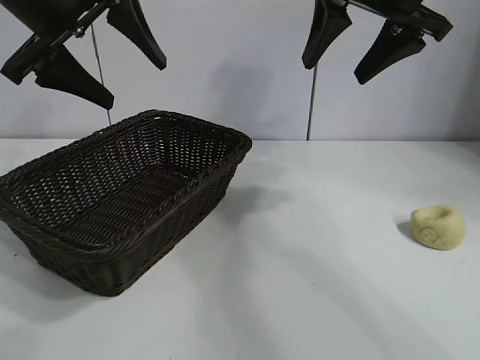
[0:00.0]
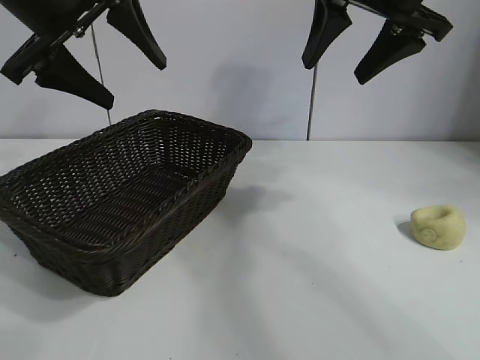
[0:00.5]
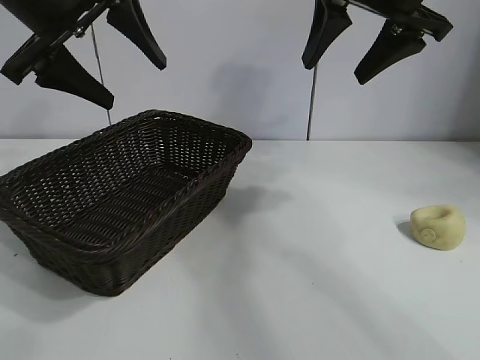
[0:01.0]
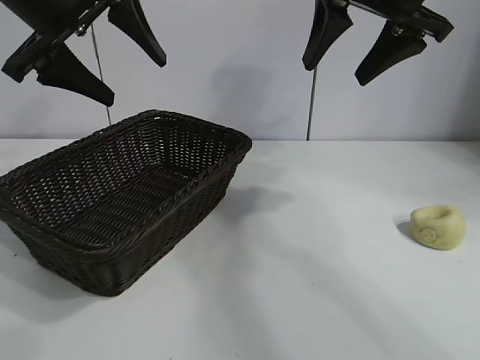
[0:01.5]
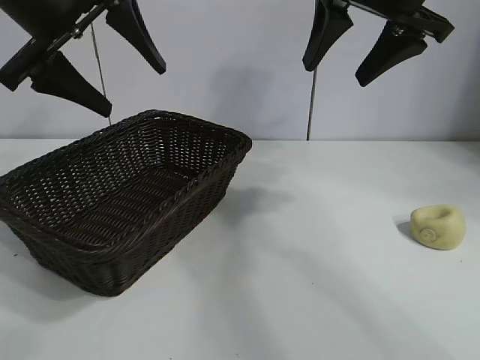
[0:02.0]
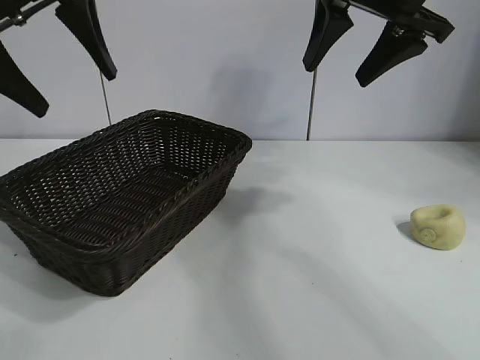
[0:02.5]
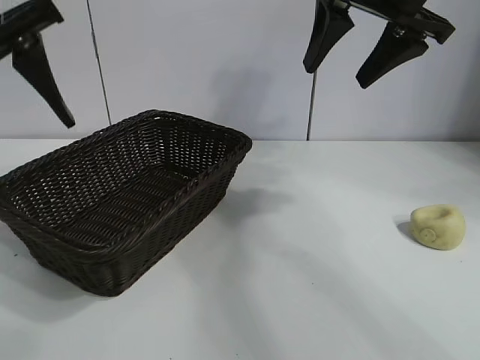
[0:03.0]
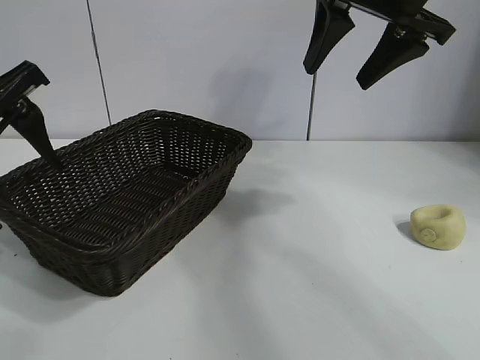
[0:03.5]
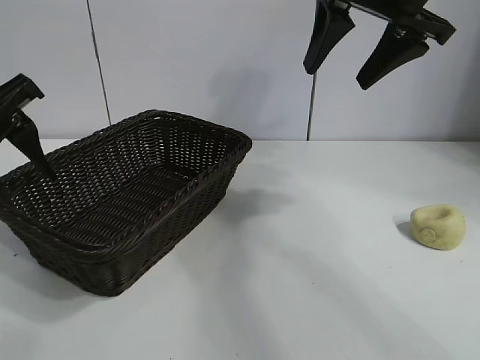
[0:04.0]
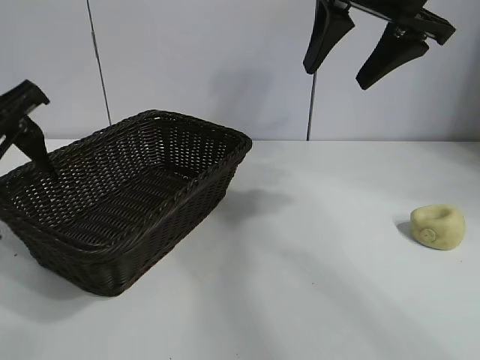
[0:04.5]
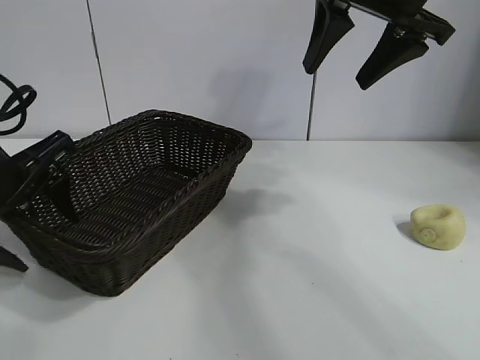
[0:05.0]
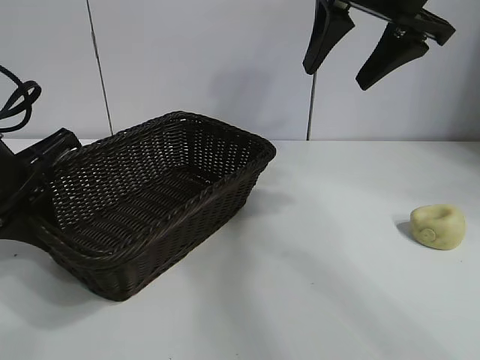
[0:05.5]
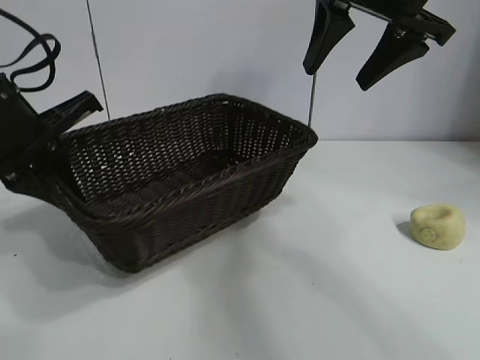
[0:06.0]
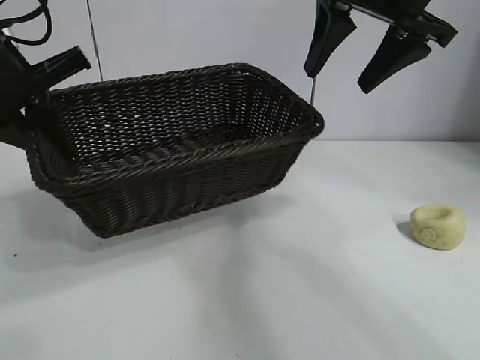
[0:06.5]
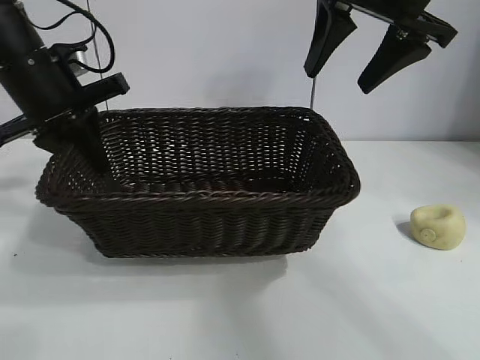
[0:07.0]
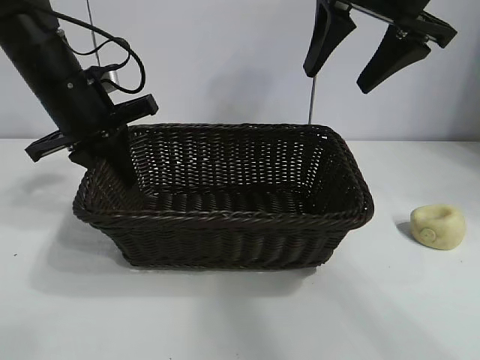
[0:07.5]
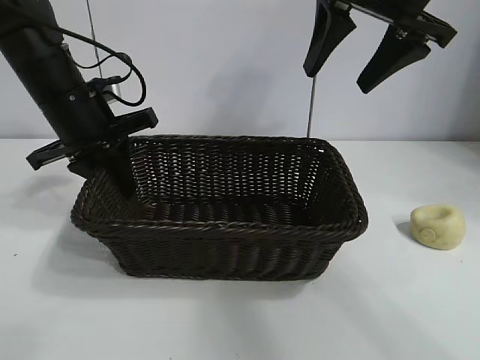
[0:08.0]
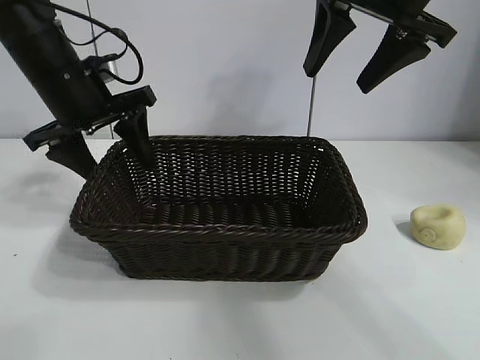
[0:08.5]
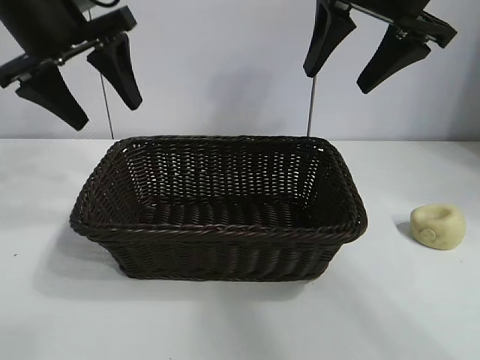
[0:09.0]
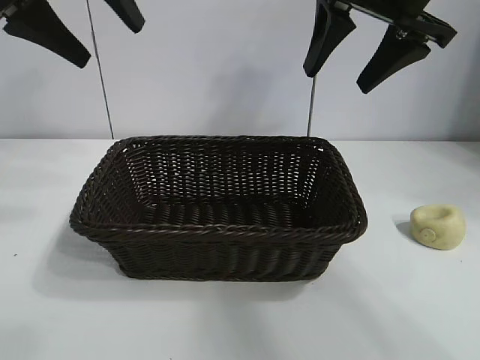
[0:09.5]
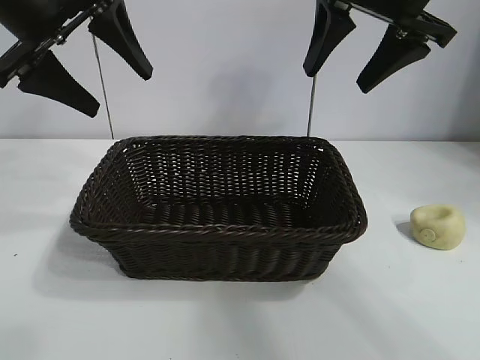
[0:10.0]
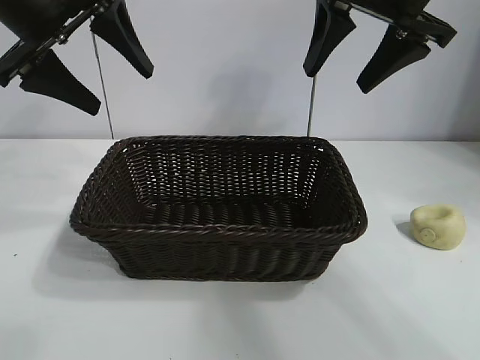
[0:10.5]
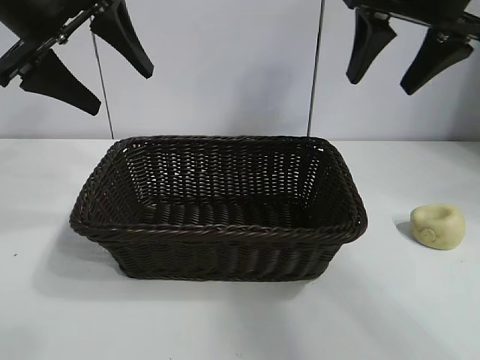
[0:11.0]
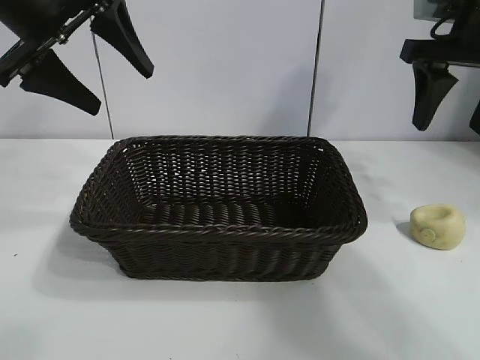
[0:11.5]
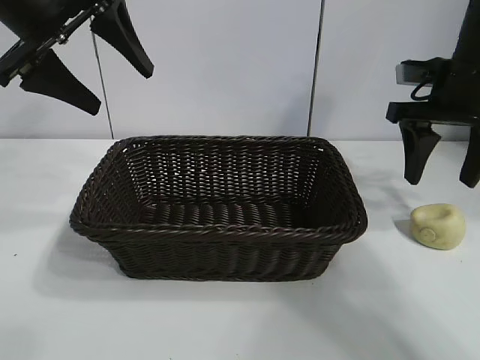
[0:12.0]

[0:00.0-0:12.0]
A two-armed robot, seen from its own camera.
Task of the whole recording: pick up the egg yolk pastry and put it into the basket.
Step, 0:01.5 to 0:05.0: Grasp the basket with left gripper.
Step, 0:05.5 to 0:08.0: Place the basket in the center of view with left gripper.

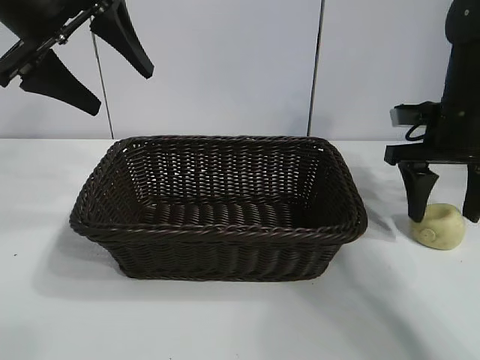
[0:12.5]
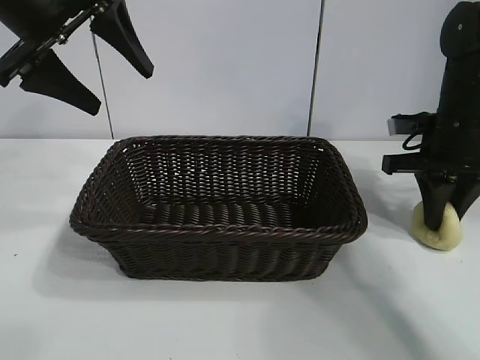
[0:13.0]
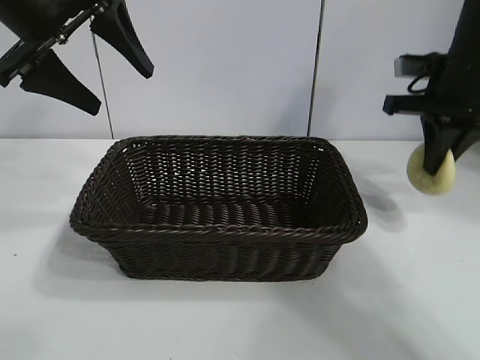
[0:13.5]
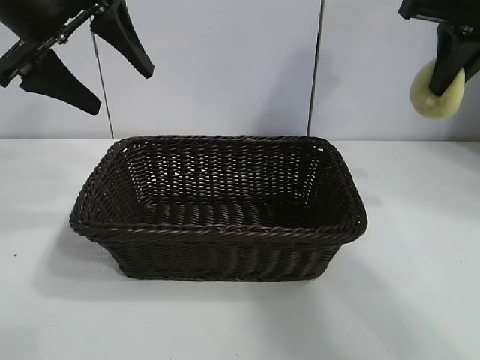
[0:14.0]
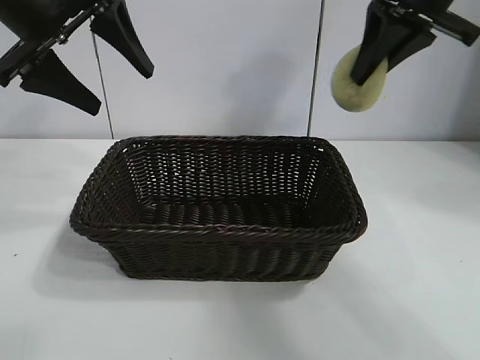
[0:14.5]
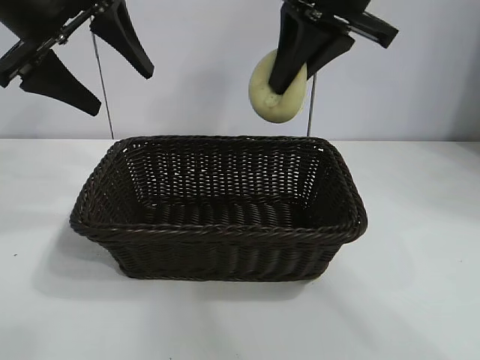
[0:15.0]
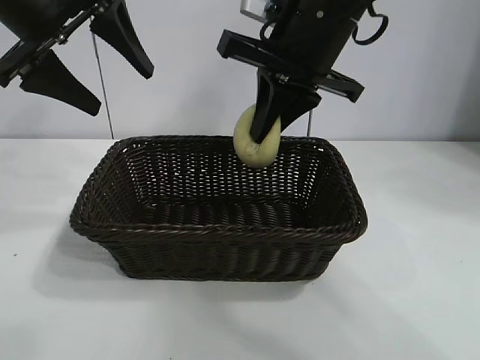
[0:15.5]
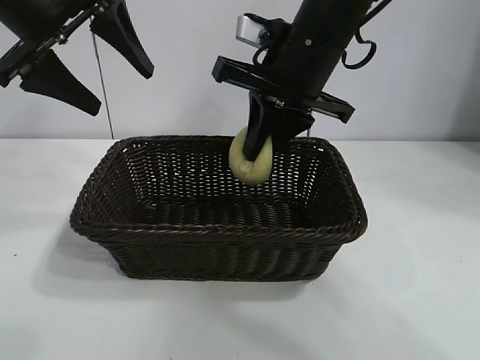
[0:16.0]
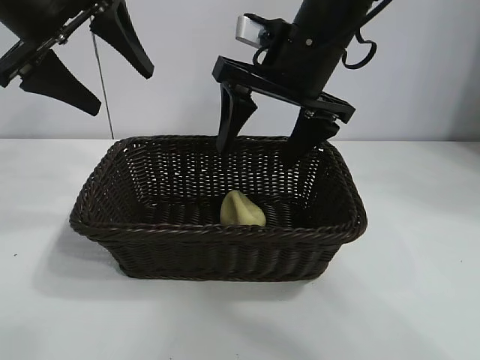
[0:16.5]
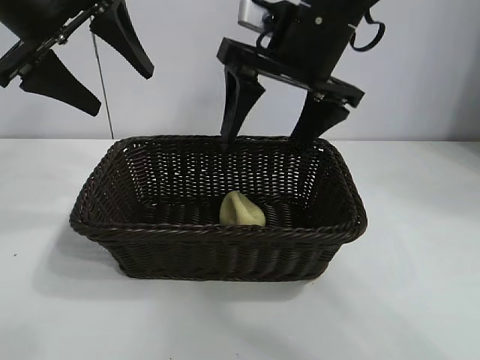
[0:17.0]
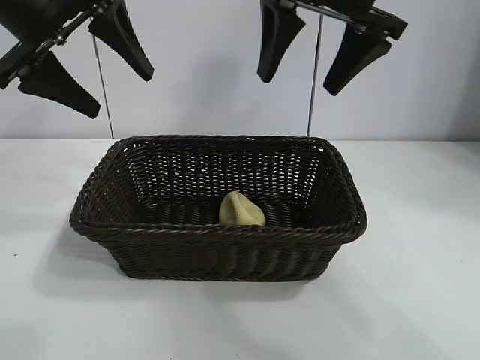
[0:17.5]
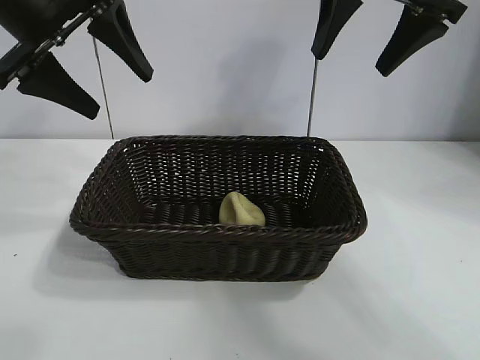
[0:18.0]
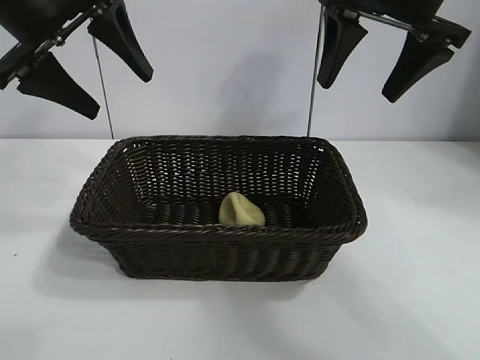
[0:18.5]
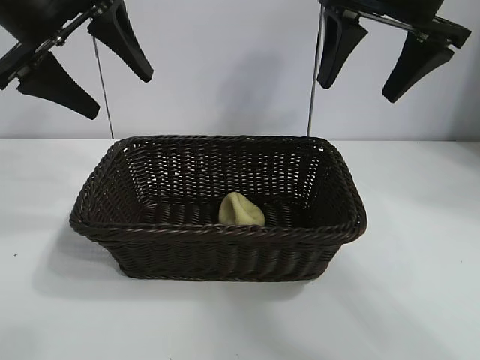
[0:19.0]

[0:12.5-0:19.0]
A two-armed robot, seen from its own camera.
Task of the whole recording: pick up the egg yolk pastry and put it into the basket.
Step, 0:13.5 to 0:16.0: Place the egg yolk pastry in the basket with right gripper.

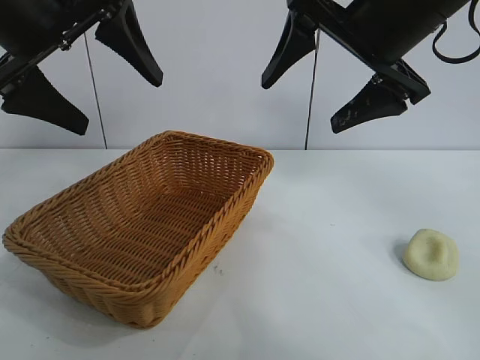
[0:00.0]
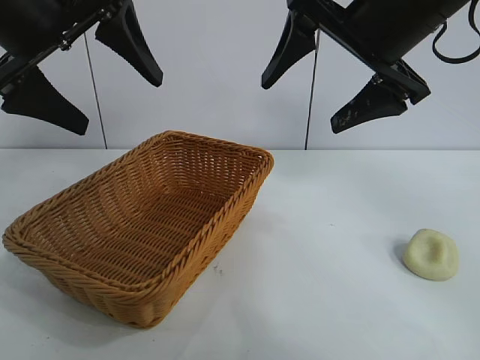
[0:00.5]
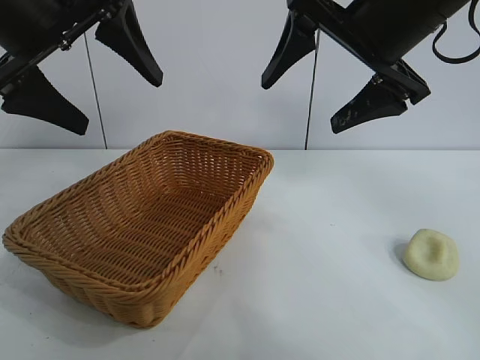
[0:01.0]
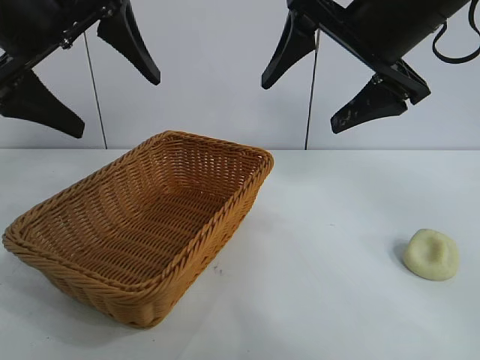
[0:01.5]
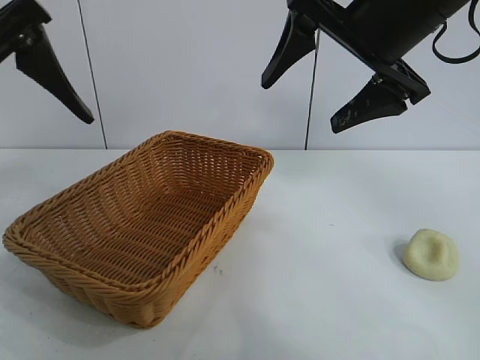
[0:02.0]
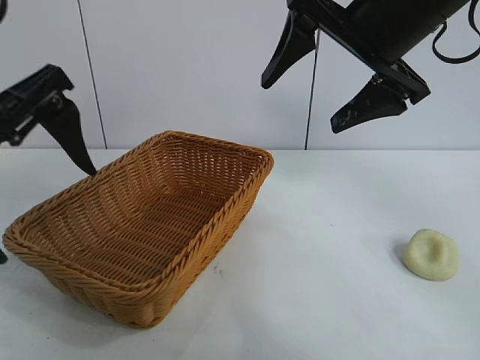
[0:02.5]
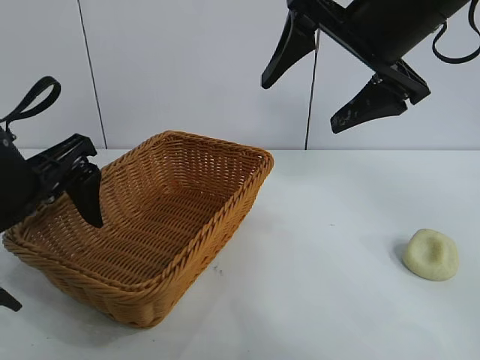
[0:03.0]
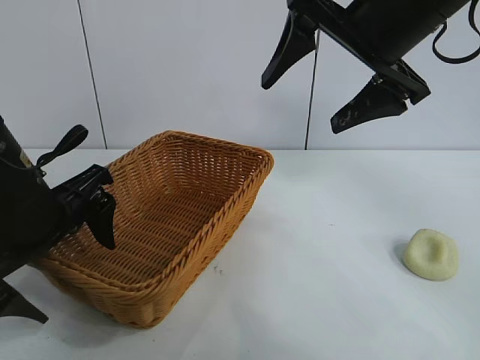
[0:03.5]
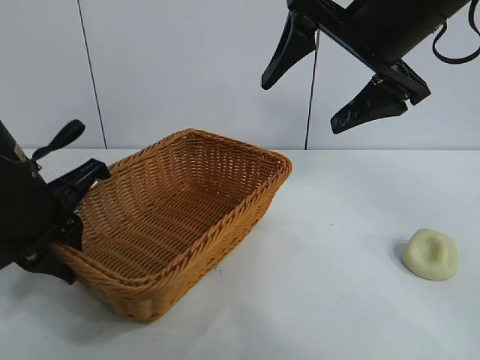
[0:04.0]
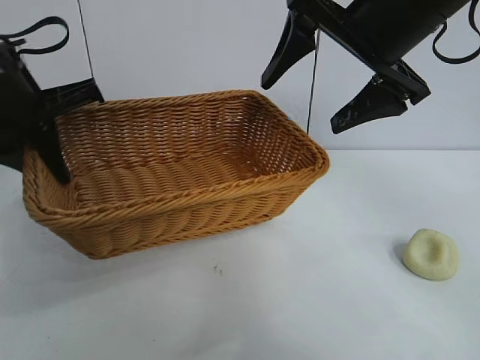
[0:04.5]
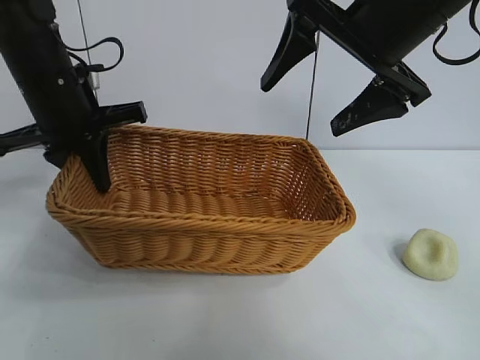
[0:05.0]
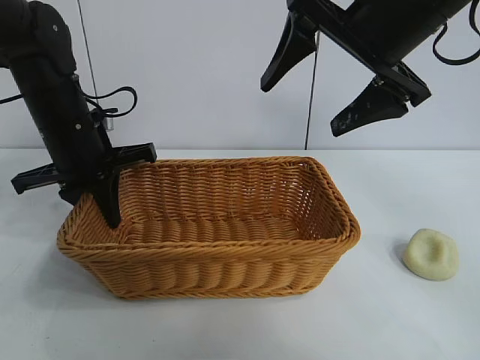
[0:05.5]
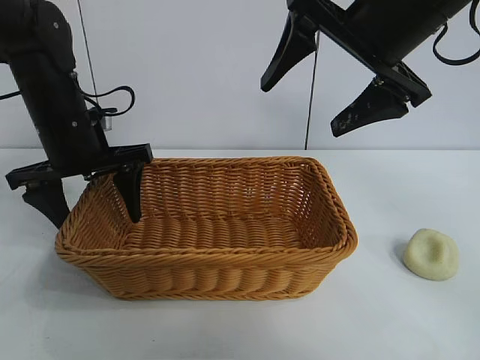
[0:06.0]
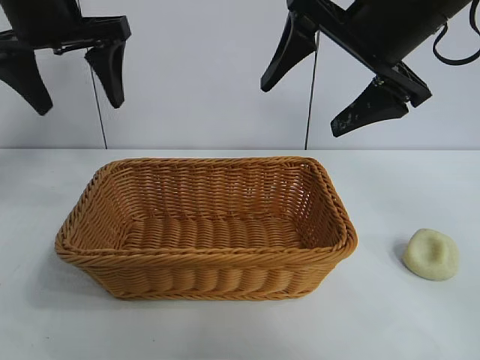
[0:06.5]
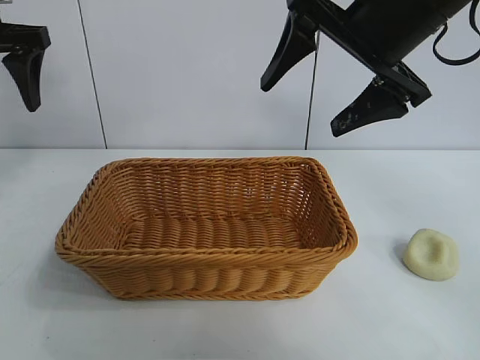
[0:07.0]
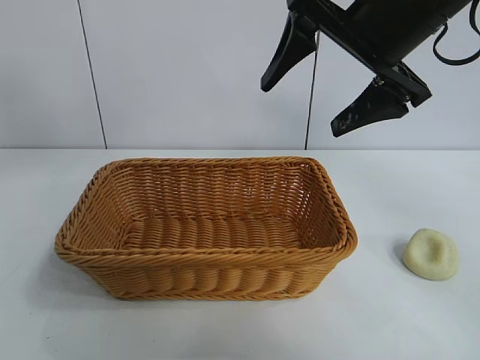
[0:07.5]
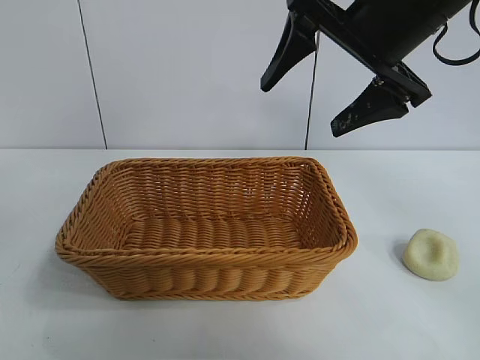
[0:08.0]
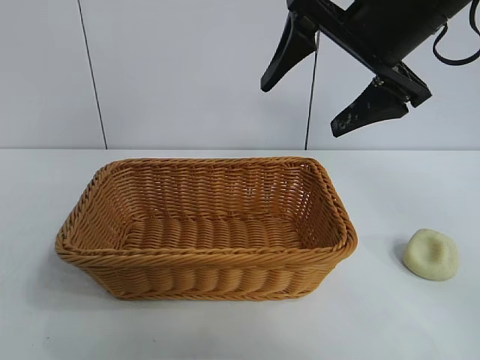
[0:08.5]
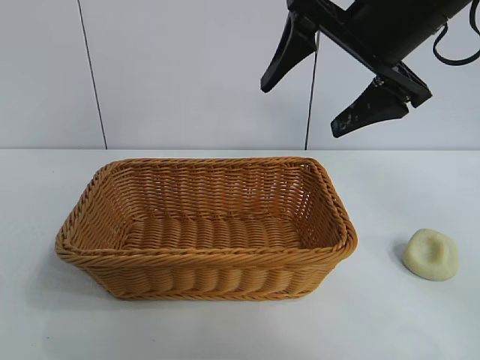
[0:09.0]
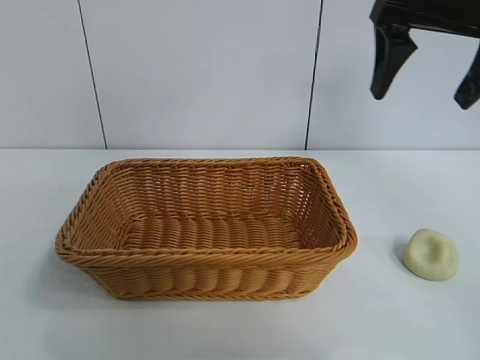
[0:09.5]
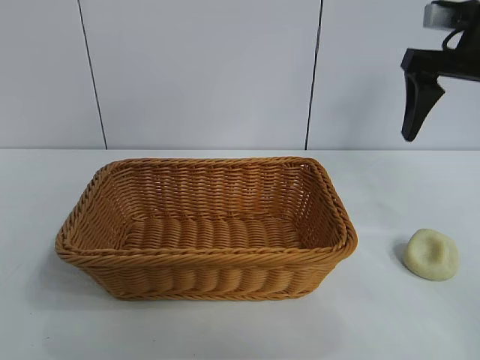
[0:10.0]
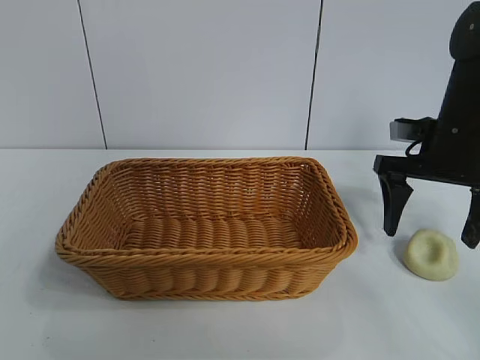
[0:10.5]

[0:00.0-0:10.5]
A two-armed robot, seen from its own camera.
Task of the whole recording: pick up the egg yolk pastry and put it into the basket.
Step, 0:01.5 to 0:03.5: Grasp the basket with left gripper.
Step, 0:04.0 to 0:05.5: Place the basket in the center of view with left gripper.
